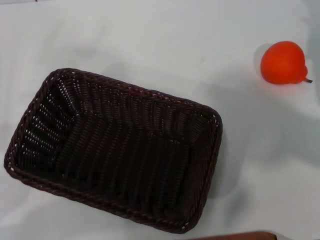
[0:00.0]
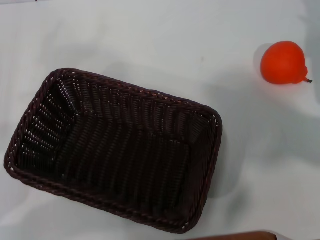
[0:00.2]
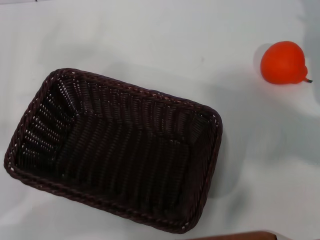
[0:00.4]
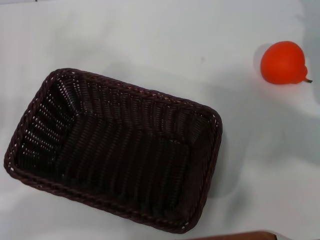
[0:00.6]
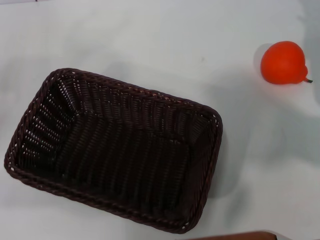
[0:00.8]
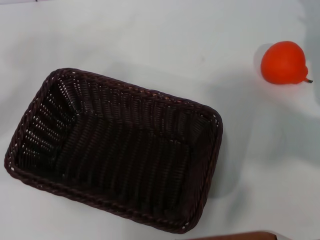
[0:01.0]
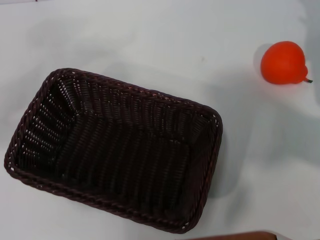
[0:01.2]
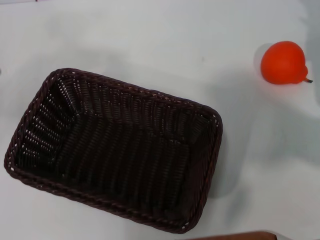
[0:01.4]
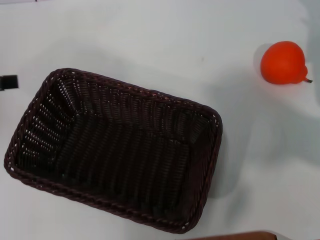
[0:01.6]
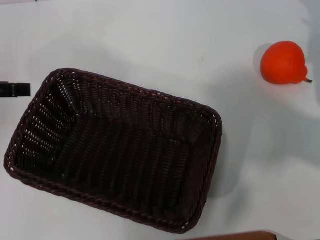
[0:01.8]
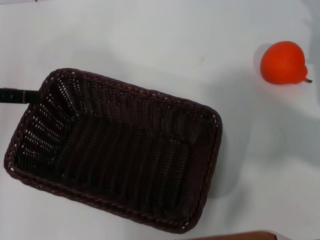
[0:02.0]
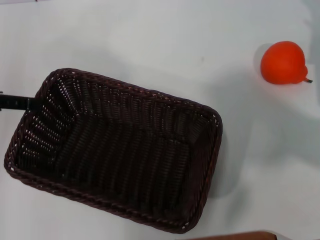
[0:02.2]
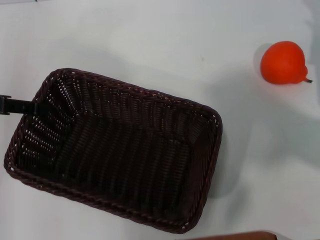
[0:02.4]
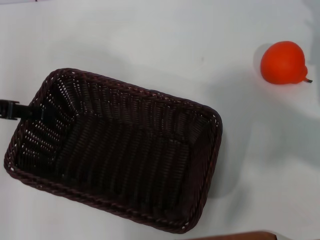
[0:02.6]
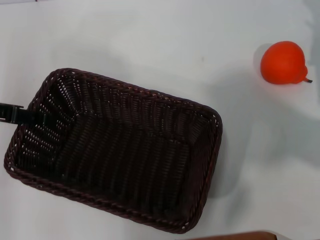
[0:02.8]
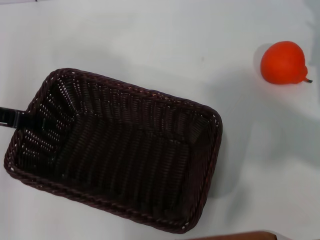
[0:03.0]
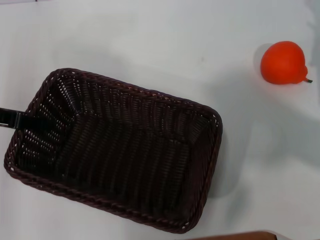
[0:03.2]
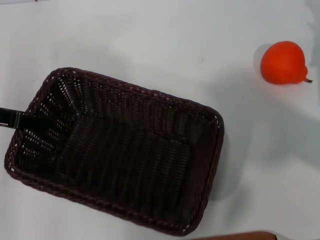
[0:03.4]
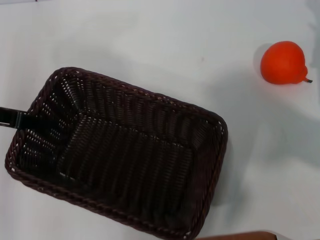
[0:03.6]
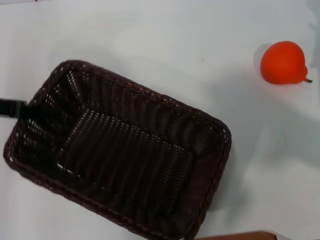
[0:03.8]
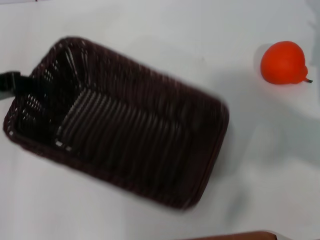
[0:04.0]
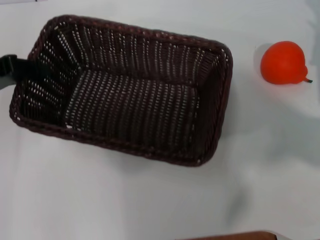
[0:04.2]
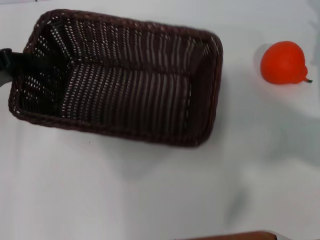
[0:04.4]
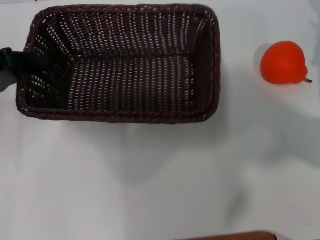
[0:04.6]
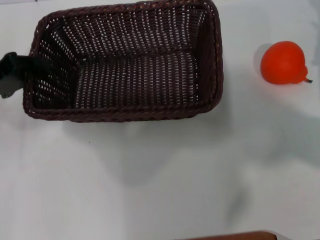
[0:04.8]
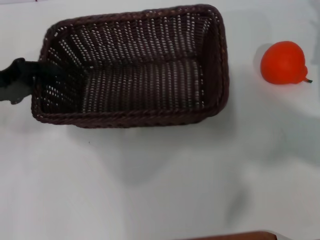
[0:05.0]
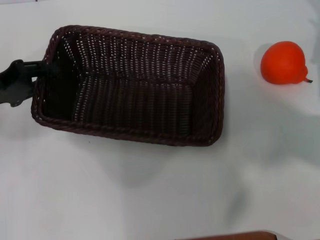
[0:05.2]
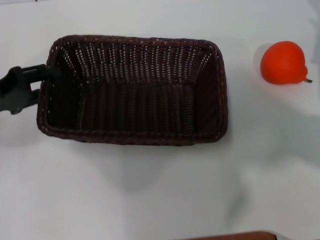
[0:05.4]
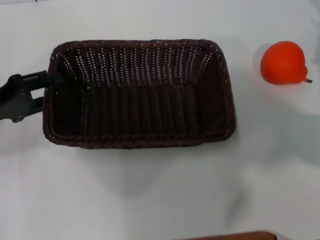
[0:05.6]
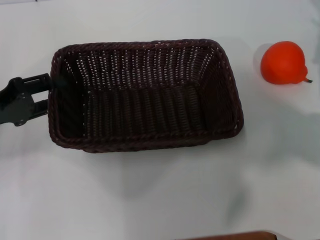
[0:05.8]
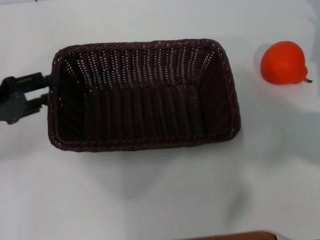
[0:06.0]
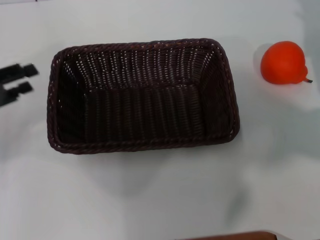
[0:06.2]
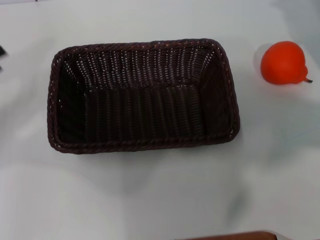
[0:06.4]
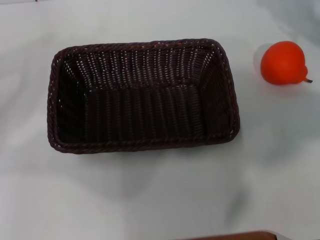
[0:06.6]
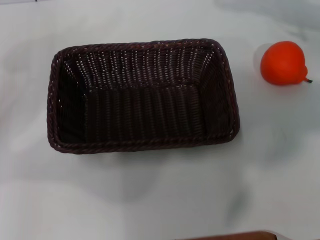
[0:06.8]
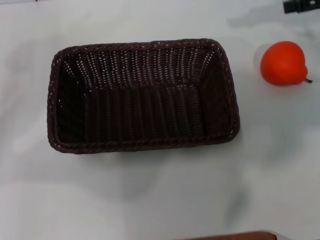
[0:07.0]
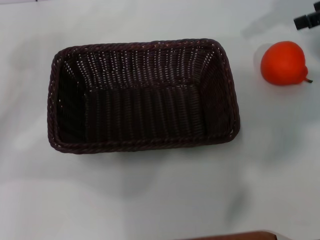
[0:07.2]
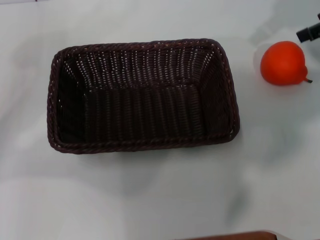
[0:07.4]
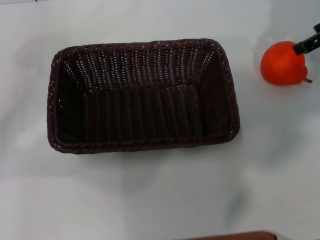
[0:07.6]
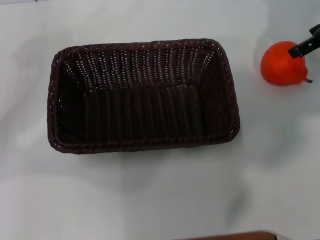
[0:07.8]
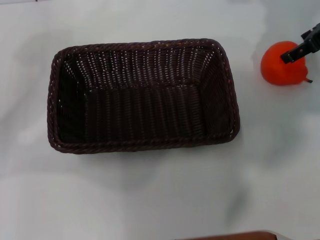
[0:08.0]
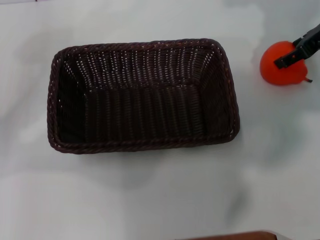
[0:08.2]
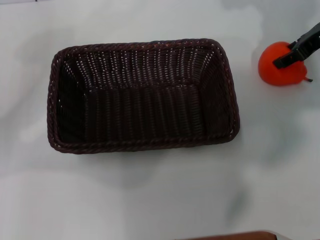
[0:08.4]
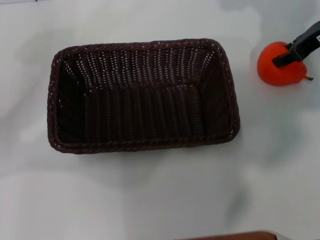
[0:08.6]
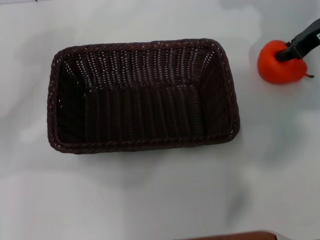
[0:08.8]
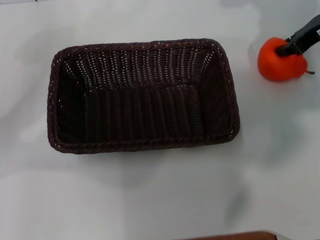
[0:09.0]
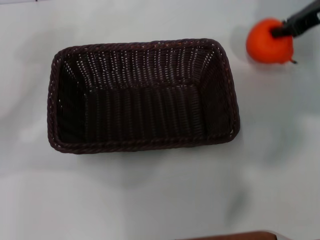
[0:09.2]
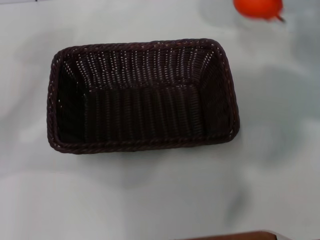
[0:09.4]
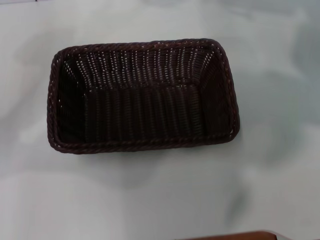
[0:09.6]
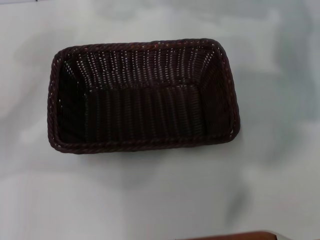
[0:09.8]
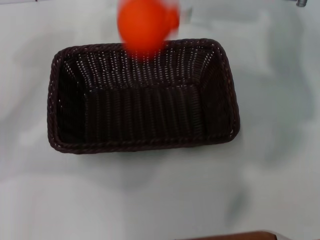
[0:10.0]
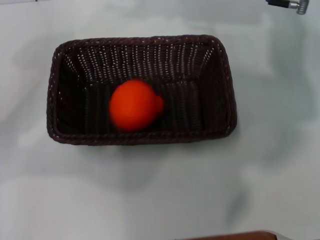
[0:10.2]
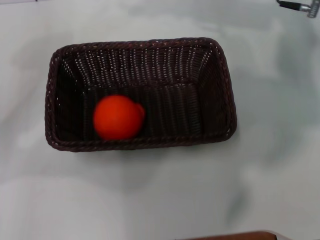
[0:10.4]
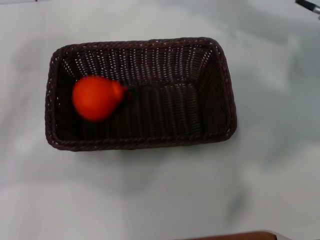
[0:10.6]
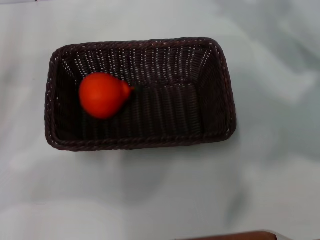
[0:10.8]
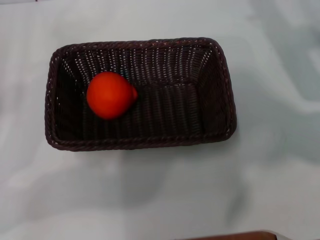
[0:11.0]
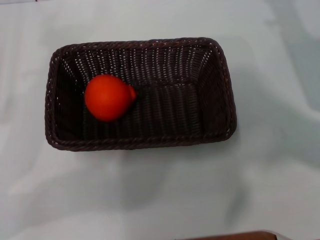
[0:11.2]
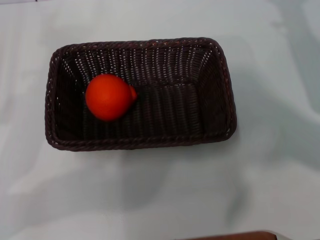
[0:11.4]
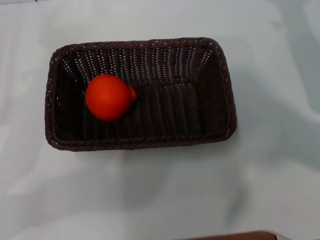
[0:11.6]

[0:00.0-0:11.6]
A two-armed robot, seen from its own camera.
Task of the whole recording: the left gripper pick up the black basket and place it horizontally in the middle of the table, the right gripper pick up the orange and place it into the black basket.
Step, 0:00.0 to 0:04.0: Pick up the dark basket with the left gripper.
Step, 0:04.2 to 0:06.0: Place the dark basket in the center of view with the left gripper.
Step, 0:06.2 to 0:09.2: Pick up the orange with the right gripper.
Step, 0:09.4 to 0:10.4: Place the orange into the dark basket with the right gripper.
0:00.0 to 0:01.4: The left gripper is displaced upward and forward by about 15 cm.
0:01.4 to 0:02.8: The left gripper goes some 5 cm to the right.
0:02.8 to 0:04.4: The left gripper closes.
0:04.4 to 0:05.8: The left gripper moves roughly 5 cm, and opens its fingers.
0:05.8 to 0:07.2: The left gripper is displaced to the left by roughly 5 cm, and opens up, while the right gripper is displaced upward by about 15 cm.
0:07.2 to 0:08.8: The right gripper travels downward and to the left by some 10 cm, and closes.
0:08.8 to 0:10.2: The right gripper heads to the left, covering some 10 cm.
0:10.2 to 0:11.6: The left gripper goes roughly 5 cm backward; the right gripper travels to the right, downward and backward by approximately 20 cm, and opens.
